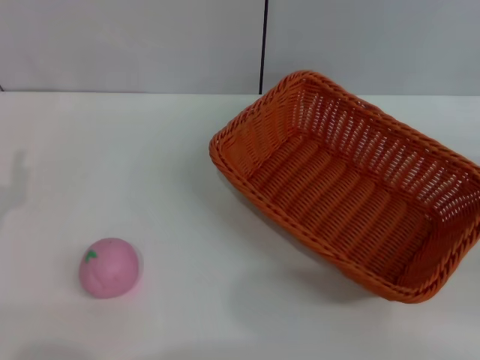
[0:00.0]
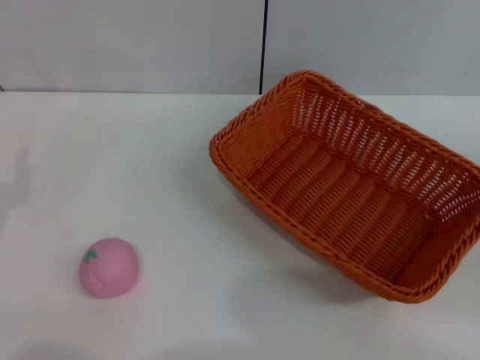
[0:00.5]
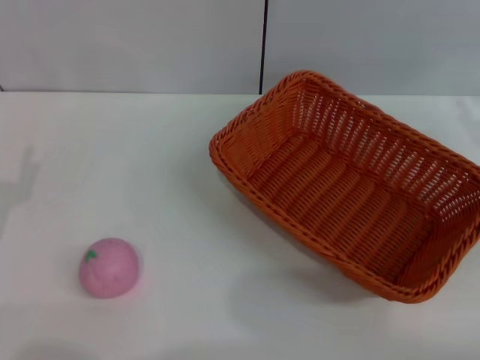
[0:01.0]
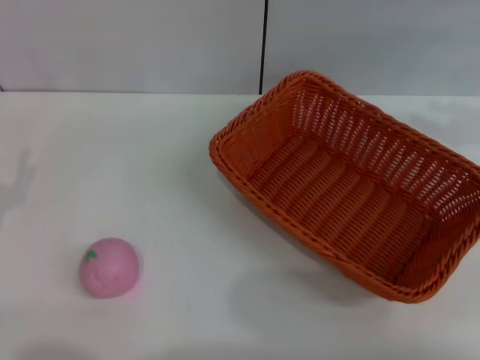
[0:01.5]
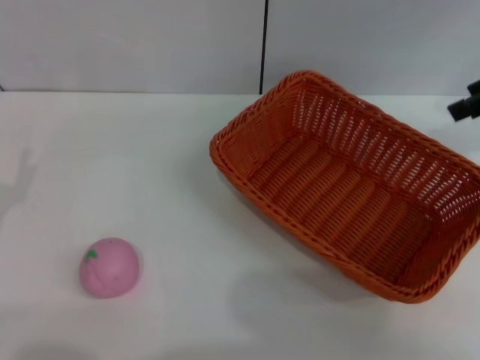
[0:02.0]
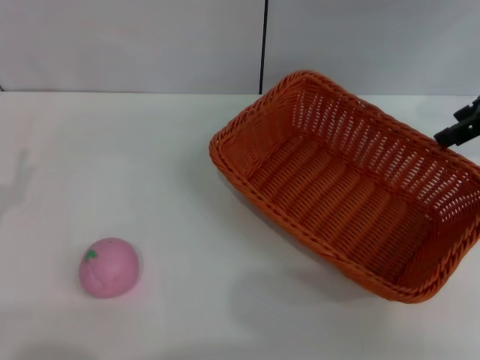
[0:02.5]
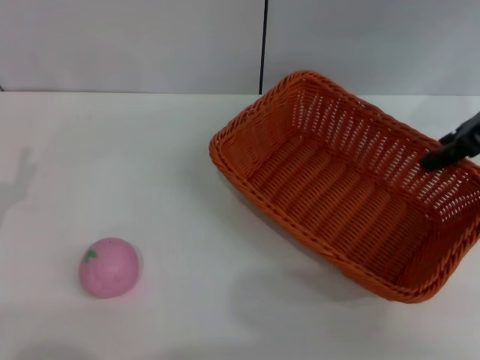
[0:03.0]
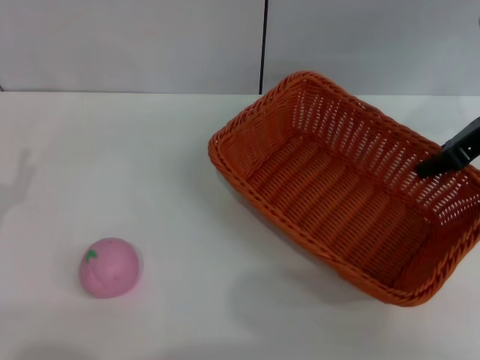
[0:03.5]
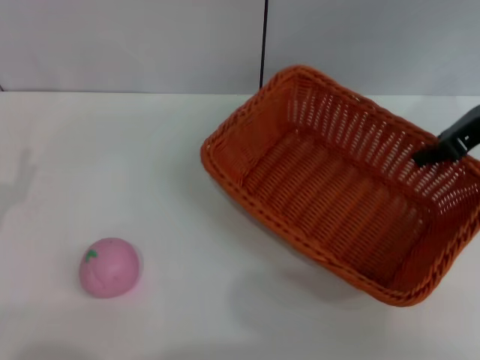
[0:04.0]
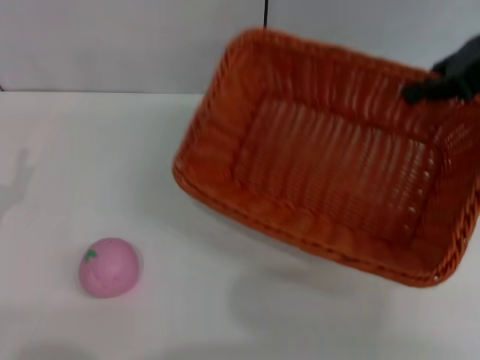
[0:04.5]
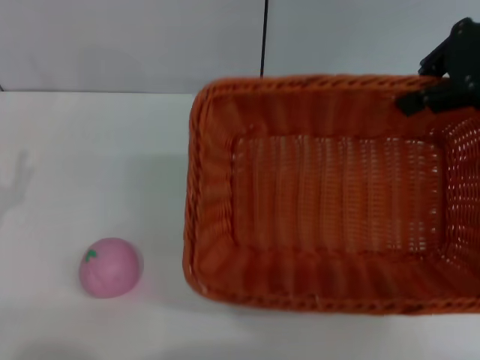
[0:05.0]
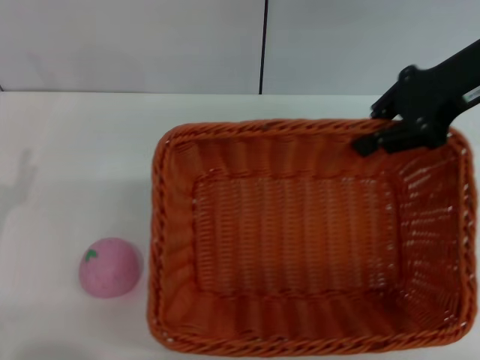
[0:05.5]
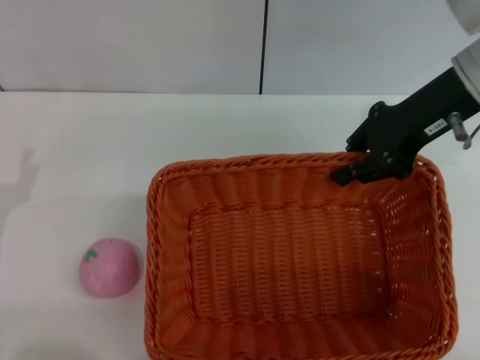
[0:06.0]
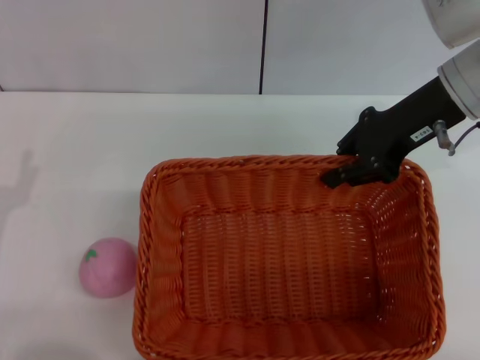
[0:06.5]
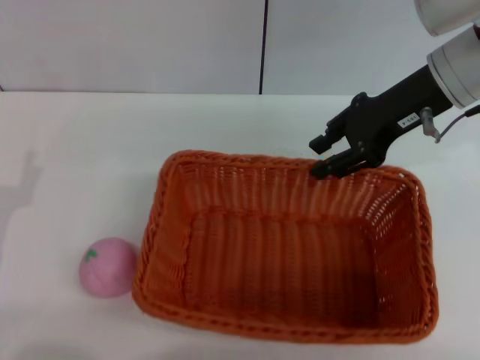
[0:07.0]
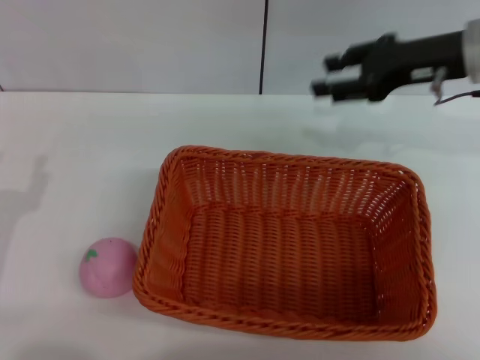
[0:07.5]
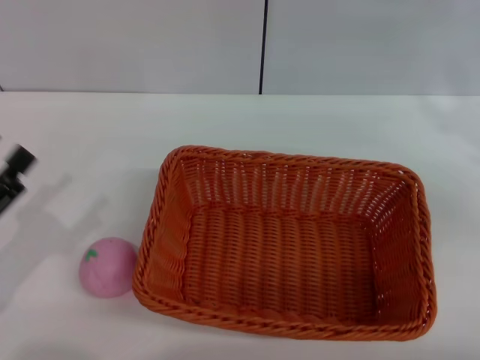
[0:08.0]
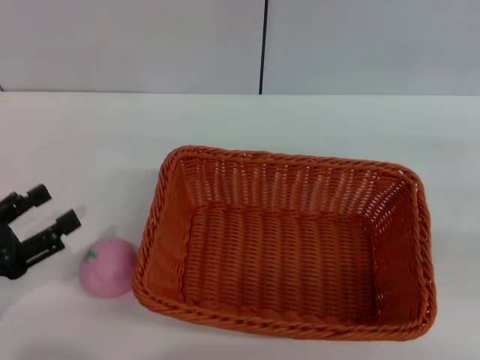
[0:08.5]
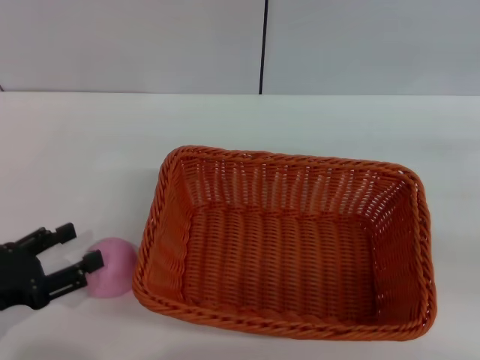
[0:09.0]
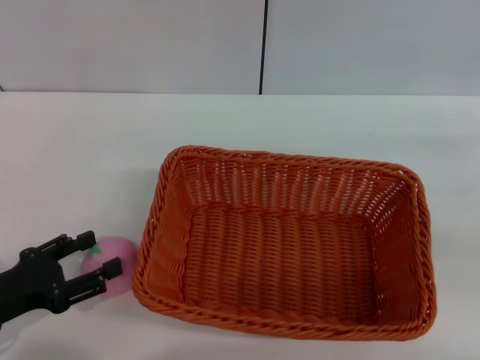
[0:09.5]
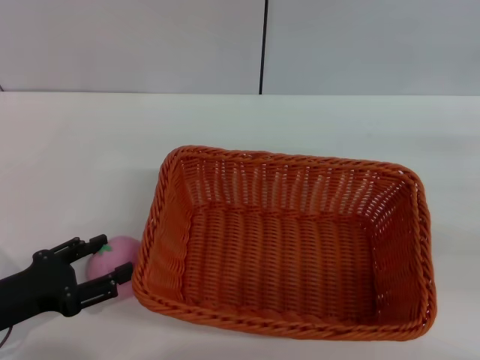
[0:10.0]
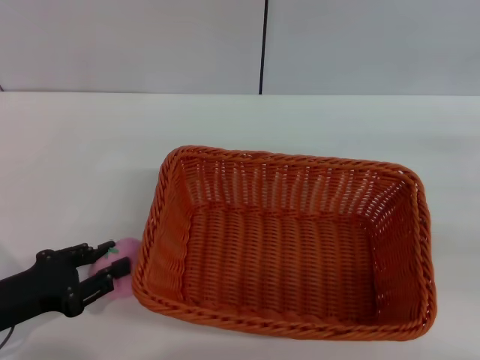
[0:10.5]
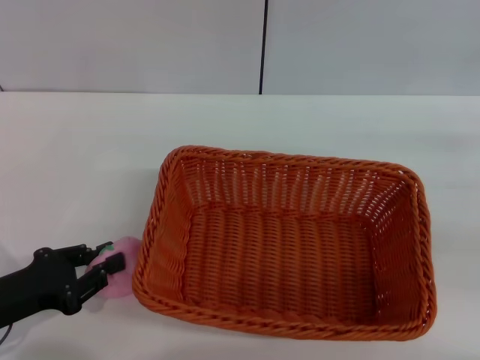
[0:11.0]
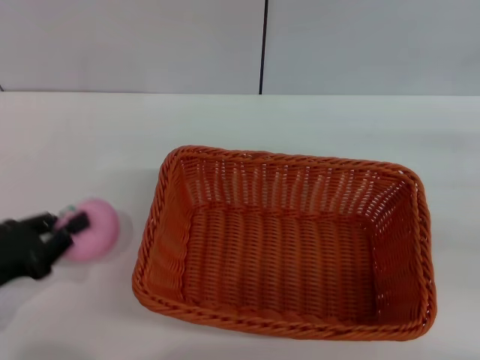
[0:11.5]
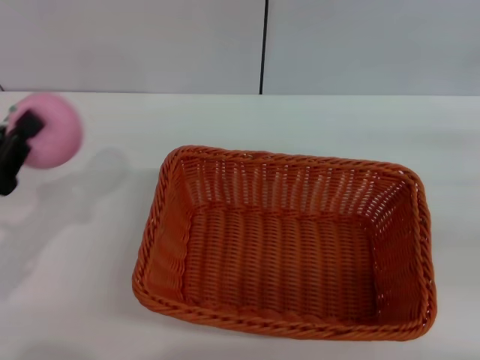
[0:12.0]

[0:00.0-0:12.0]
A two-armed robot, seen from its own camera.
Step, 0:00.0 to 0:04.0: Pick up the light basket with the right gripper.
Step, 0:04.5 to 0:07.0: Place the light basket in the center of view with the right gripper.
Step, 0:07.5 to 0:12.0: Pick up the peach with the left gripper.
0:00.0 to 0:02.0: The right gripper heads upward and forward, covering approximately 25 cm, and opens its fingers.
0:02.0 to 0:04.0: The right gripper shifts some 5 cm downward, and closes its fingers.
0:04.0 to 0:06.0: The right gripper is displaced to the left by roughly 5 cm, and travels upward and back again, roughly 10 cm each way.
0:06.0 to 0:08.0: The right gripper heads to the right, backward and downward, covering roughly 15 cm, and opens.
0:10.0 to 0:12.0: The left gripper shifts by approximately 5 cm, and closes.

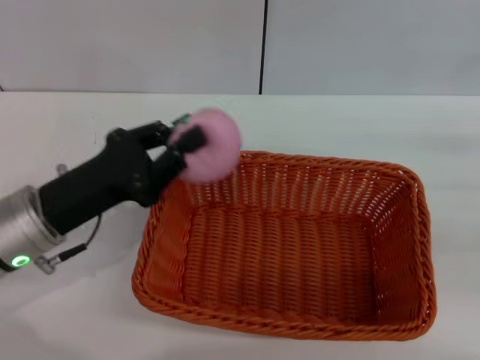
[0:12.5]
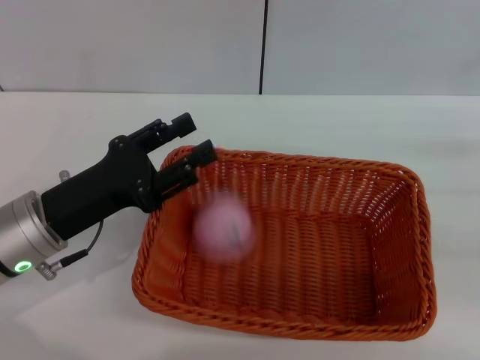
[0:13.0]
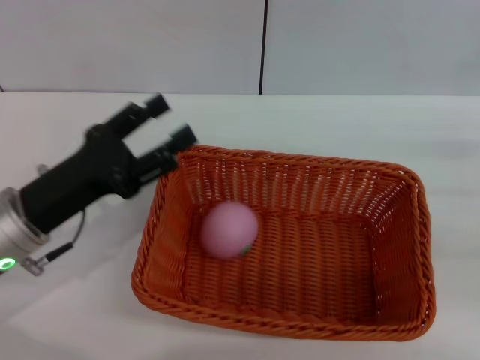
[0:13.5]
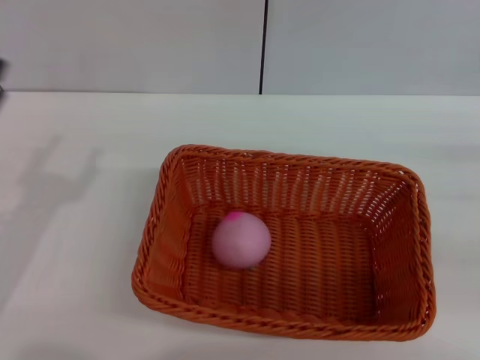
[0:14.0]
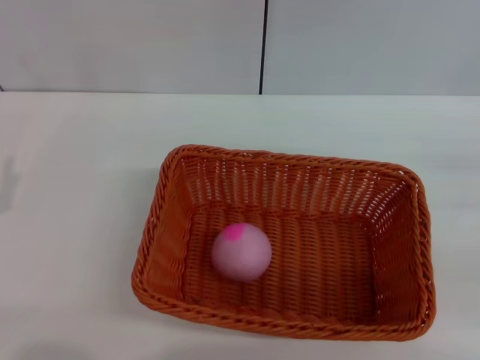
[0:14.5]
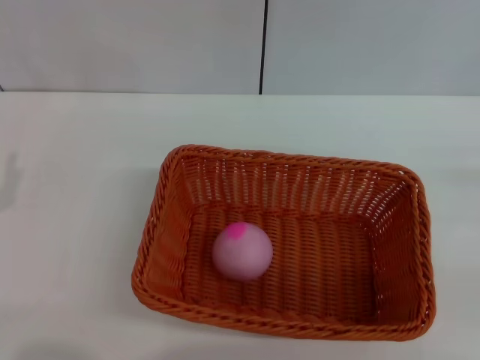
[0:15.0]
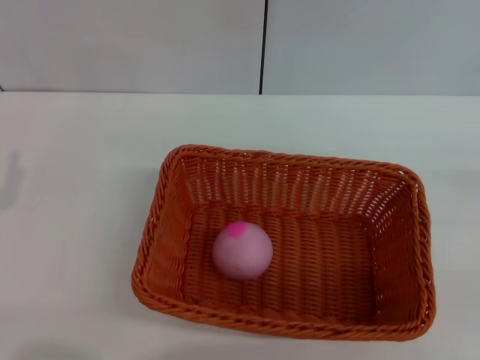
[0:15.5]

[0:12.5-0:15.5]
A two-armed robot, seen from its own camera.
Step, 0:12.5 to 0:13.5: Place the peach into the basket with the left gripper.
0:12.5 to 0:14.0: The left gripper travels to the left by roughly 5 cm, and opens.
